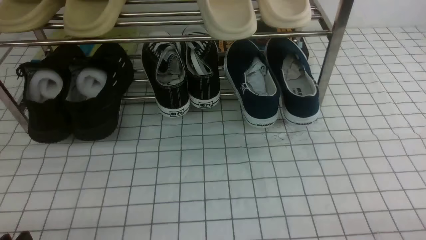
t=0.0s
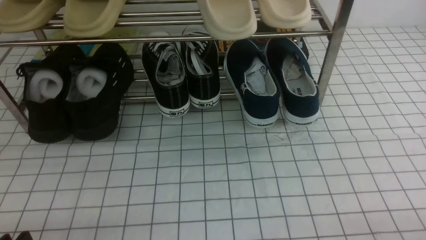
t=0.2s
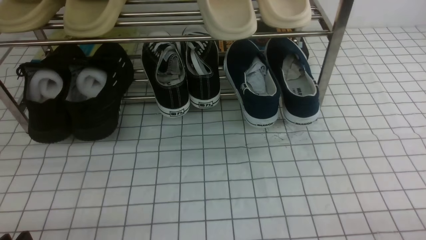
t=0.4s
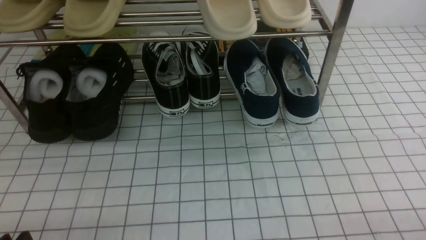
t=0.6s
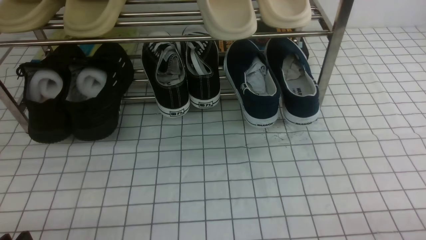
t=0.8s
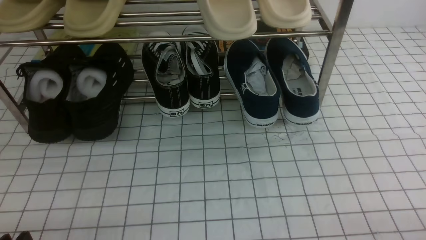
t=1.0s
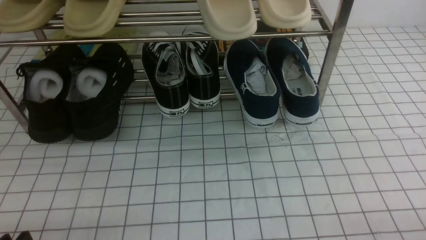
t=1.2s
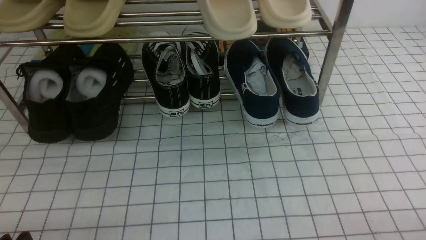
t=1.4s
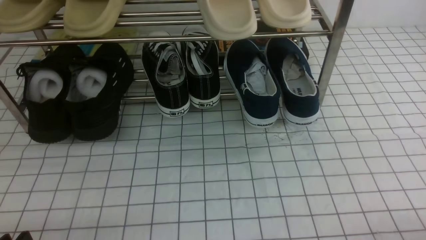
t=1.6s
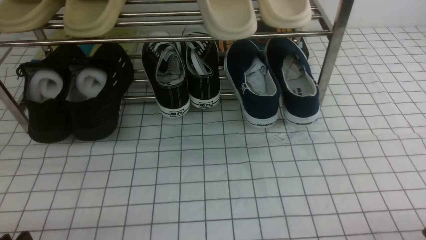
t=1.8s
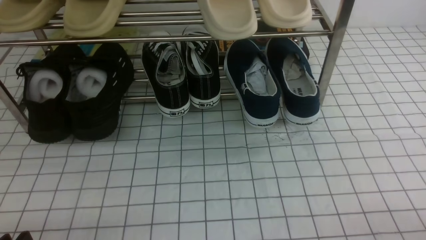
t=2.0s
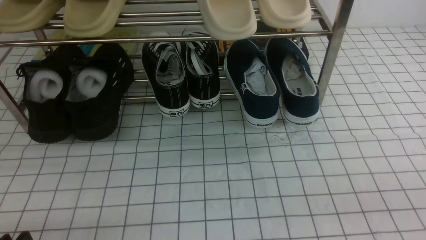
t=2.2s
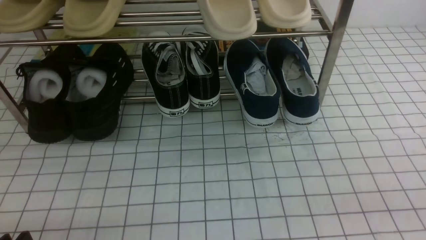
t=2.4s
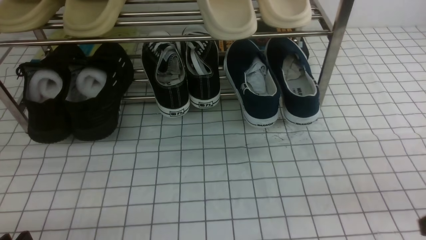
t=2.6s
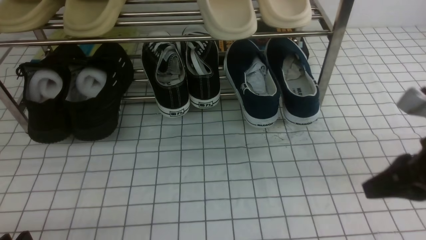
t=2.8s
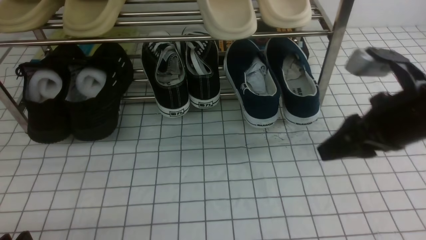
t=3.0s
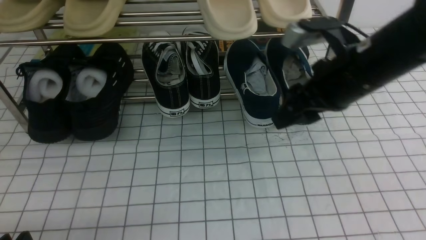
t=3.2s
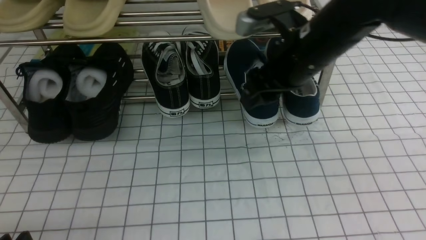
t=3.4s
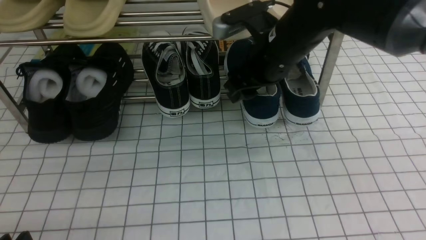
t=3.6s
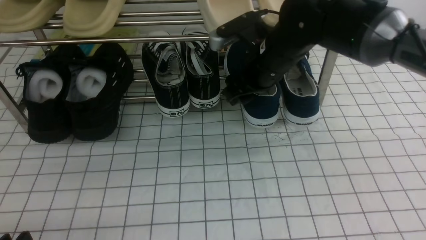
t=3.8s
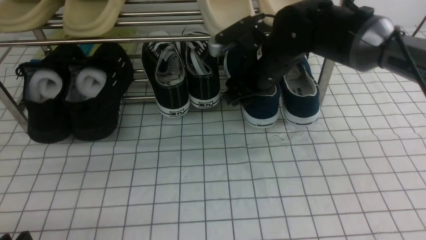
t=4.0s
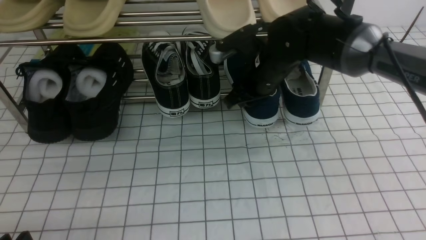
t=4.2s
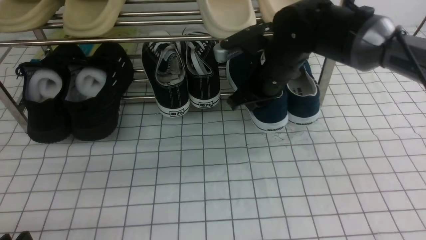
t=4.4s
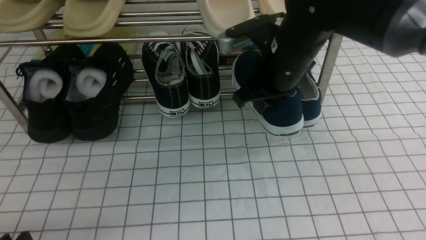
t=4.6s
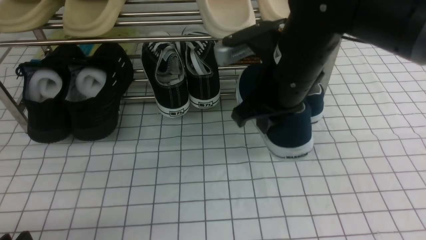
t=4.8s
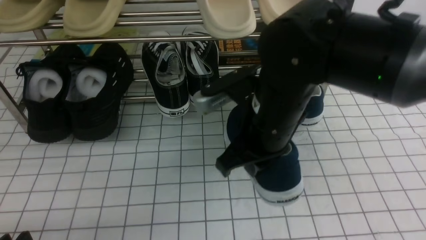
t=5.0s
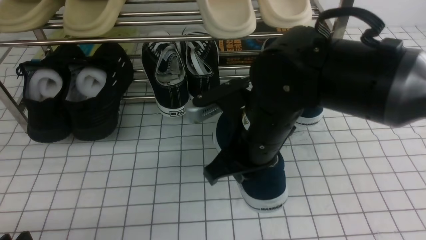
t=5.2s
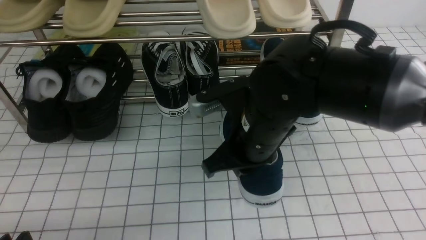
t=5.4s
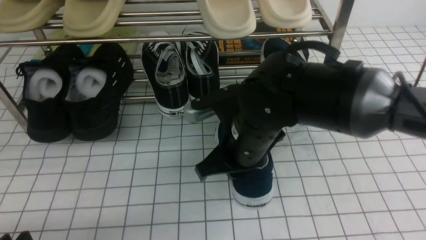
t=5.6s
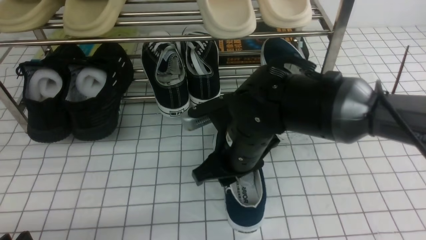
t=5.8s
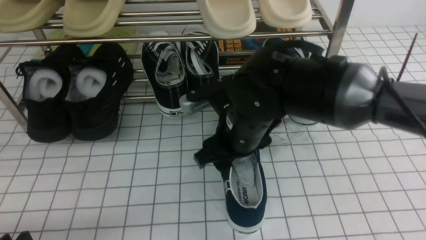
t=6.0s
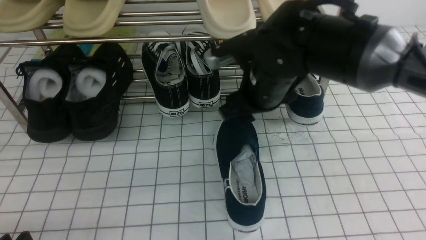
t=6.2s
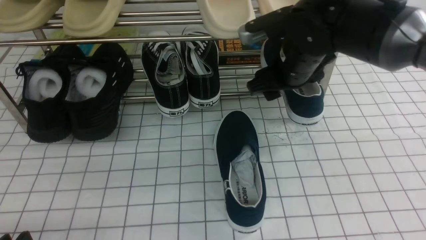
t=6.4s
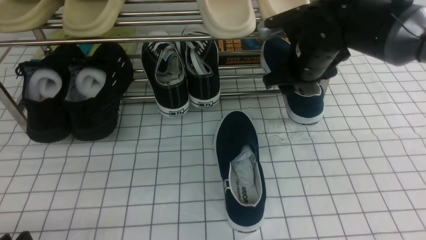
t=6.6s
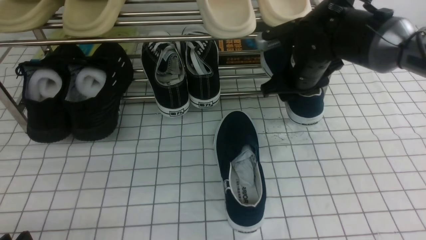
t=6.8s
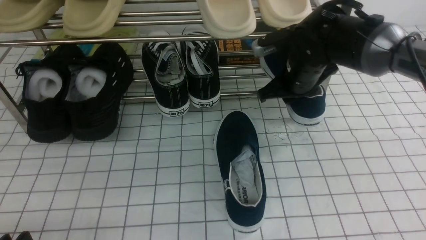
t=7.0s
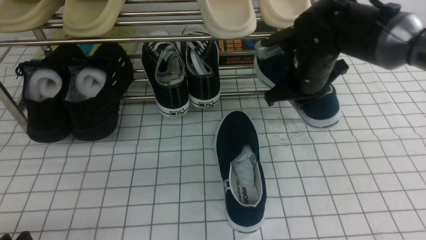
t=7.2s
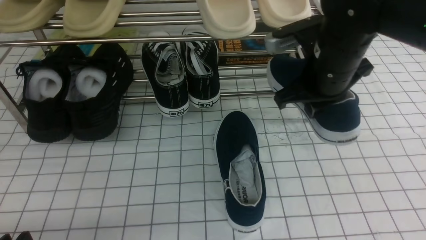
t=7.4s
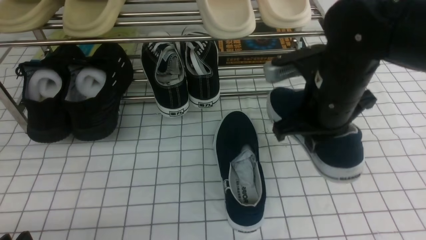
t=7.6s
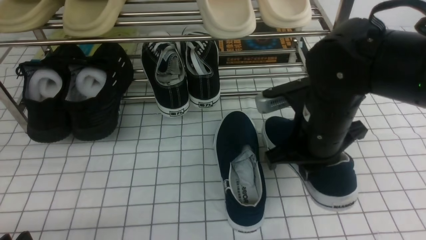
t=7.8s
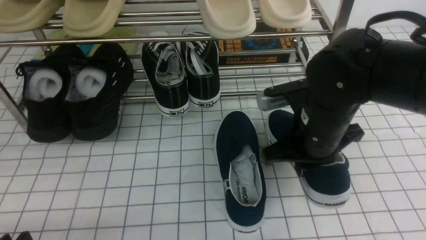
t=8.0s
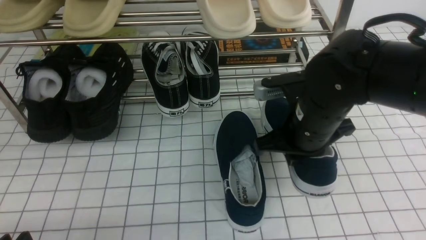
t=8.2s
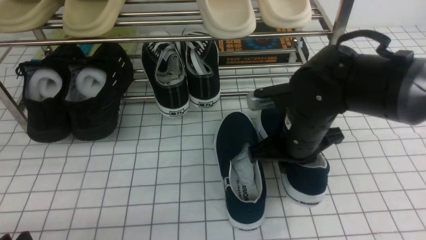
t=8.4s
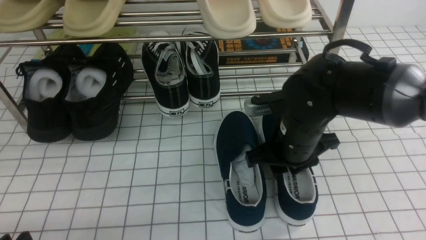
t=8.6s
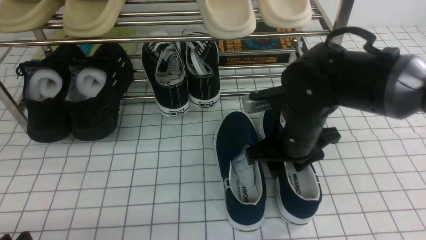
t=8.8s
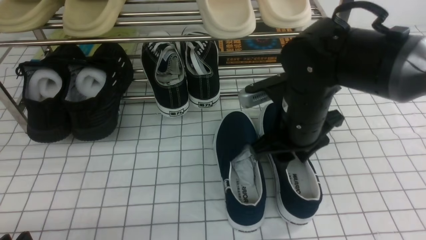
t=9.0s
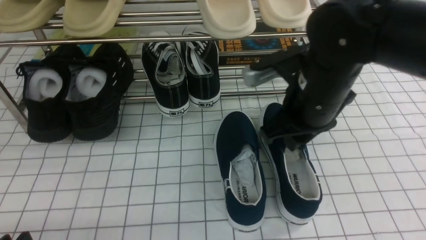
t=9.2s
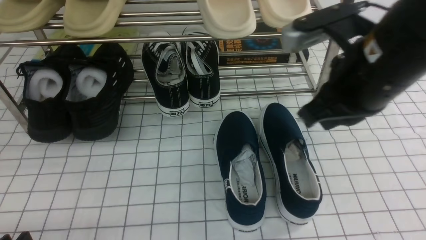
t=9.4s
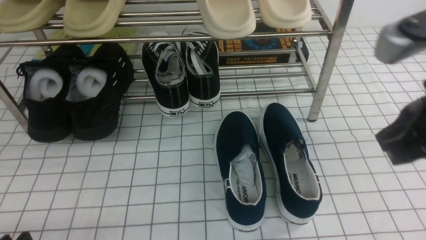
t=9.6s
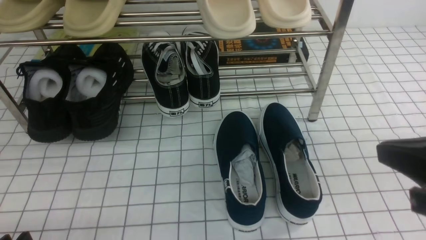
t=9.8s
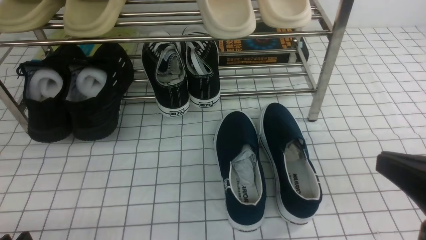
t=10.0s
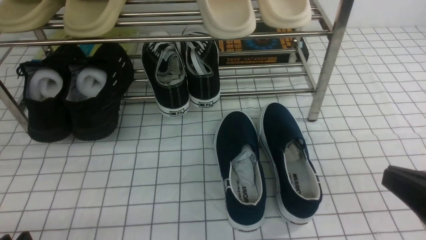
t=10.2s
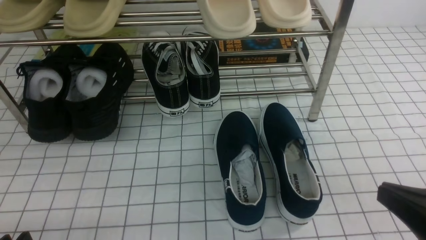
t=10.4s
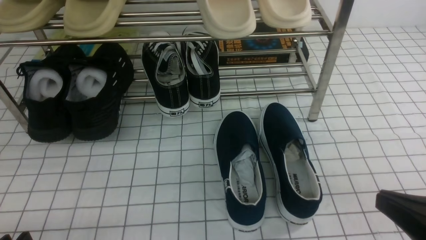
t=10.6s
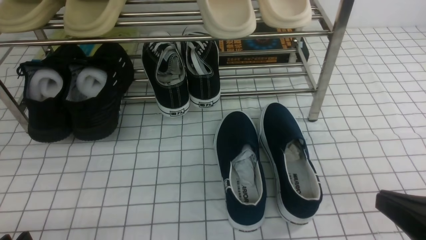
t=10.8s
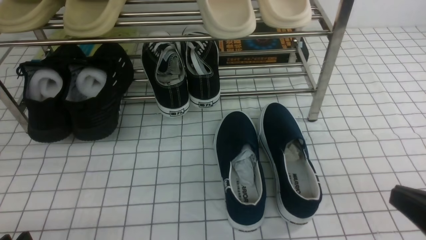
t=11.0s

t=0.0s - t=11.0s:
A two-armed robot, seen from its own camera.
Step, t=0.0s - t=4.2s: use the right arm to clamp a shoe on the right side of the shoe rack.
Step, t=4.4s - t=6.0s: use the right arm to take out the clamped shoe from the shoe rack and put it down.
Step, t=6.2s - t=6.8s: use the right arm to clamp a shoe on the right side of the shoe rack.
Step, t=7.0s - t=9.2s: use the right arm to take out the clamped shoe from the shoe rack and put it down.
t=1.6s - t=3.2s: The right gripper is displaced forward, to the left and upward by roughly 35 cm, and closes and opens again.
t=3.2s - t=4.8s: The right gripper is displaced to the left by approximately 10 cm, moves about 10 cm forward and comes back, and closes up.
t=4.8s - t=6.2s: The right gripper opens up.
t=6.2s - t=7.8s: The right gripper goes approximately 10 cm backward and to the right, and closes.
t=7.8s - t=9.4s: The right gripper goes some 10 cm upward and backward, and opens and closes again.
t=9.4s - t=11.0s: The right gripper moves backward, downward and to the right, about 20 cm.

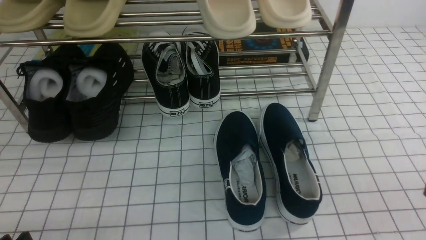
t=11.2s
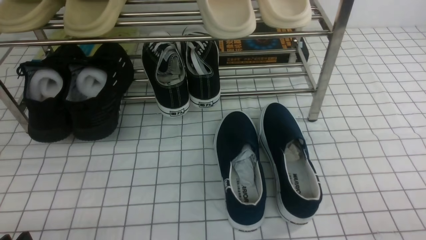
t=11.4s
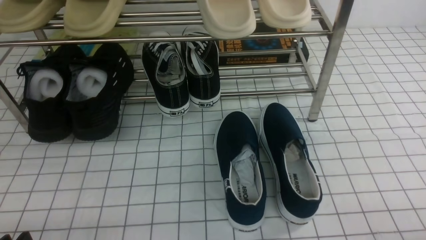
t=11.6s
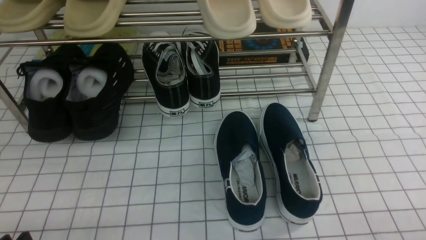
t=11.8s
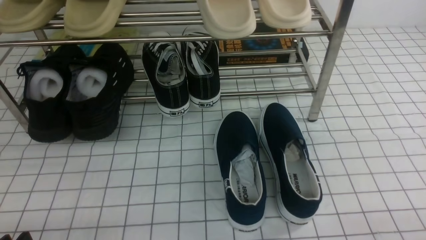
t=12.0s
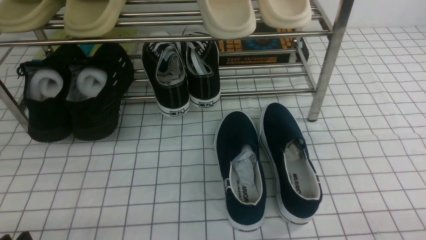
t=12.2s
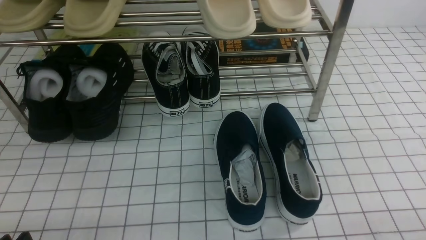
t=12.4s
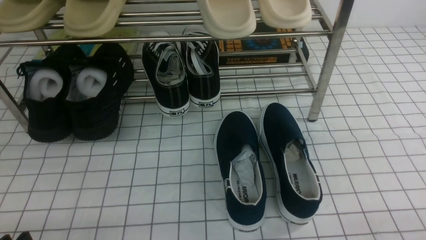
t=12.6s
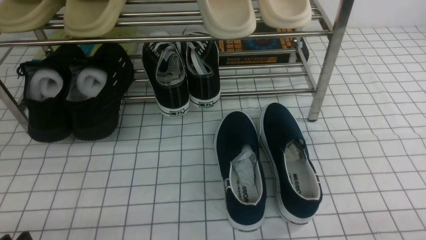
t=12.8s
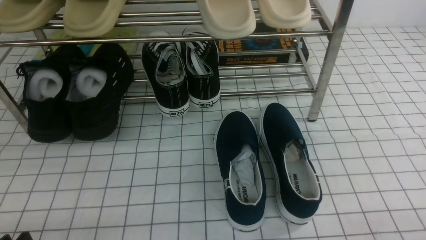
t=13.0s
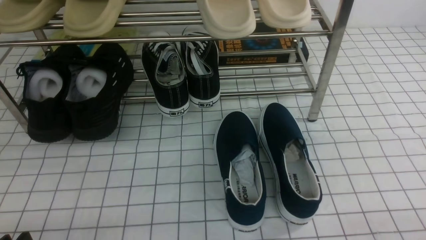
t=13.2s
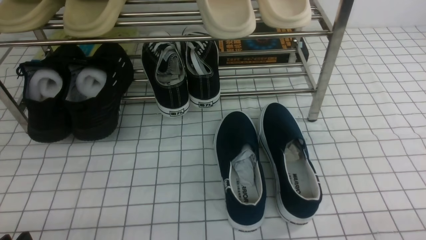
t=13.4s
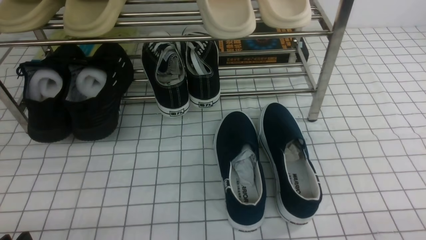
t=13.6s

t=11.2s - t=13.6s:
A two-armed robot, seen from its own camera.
t=12.4s - t=13.6s: Both grippers stay put.

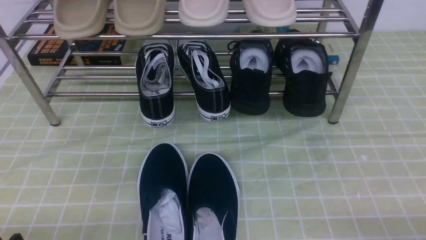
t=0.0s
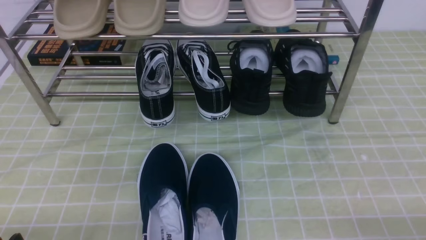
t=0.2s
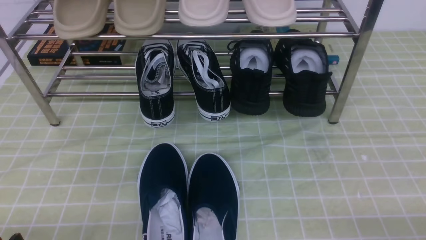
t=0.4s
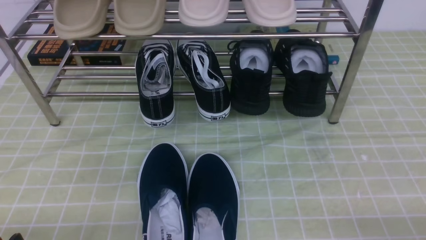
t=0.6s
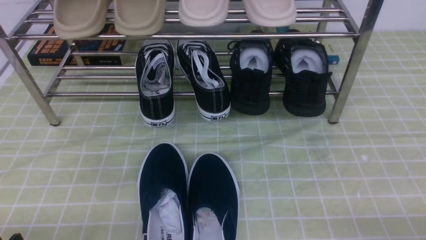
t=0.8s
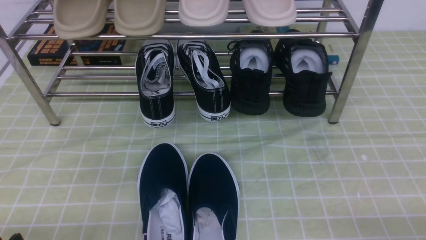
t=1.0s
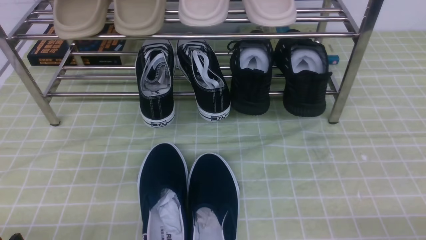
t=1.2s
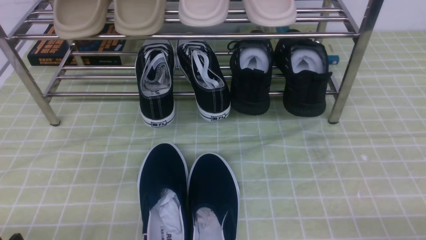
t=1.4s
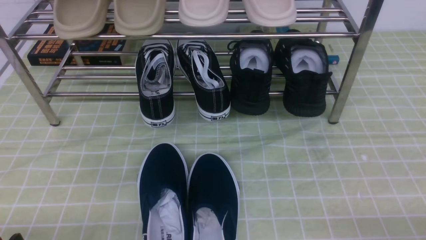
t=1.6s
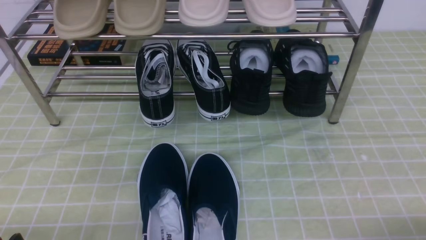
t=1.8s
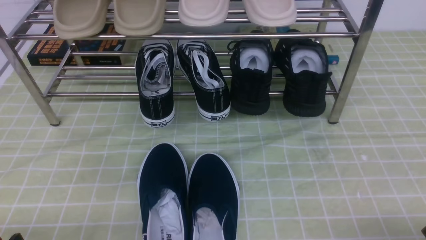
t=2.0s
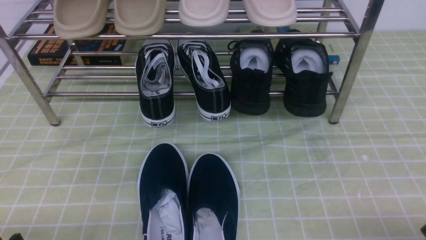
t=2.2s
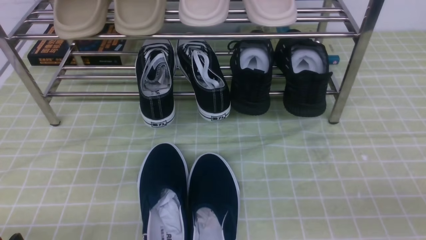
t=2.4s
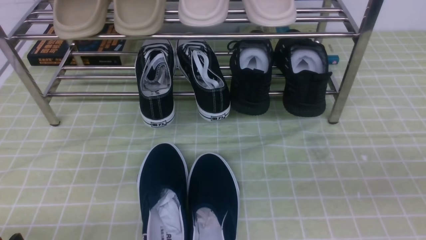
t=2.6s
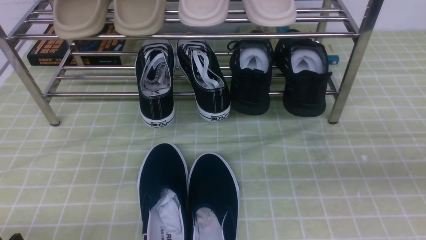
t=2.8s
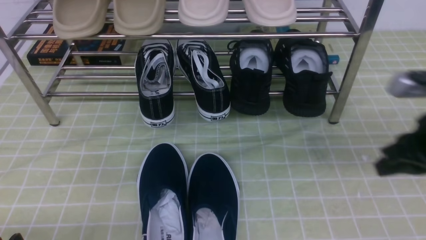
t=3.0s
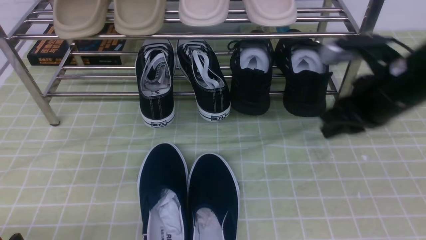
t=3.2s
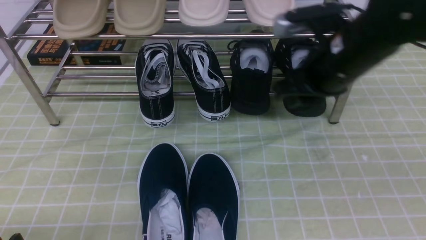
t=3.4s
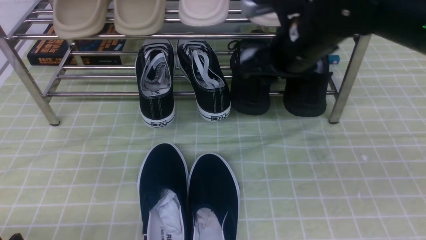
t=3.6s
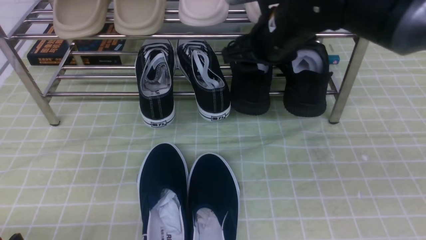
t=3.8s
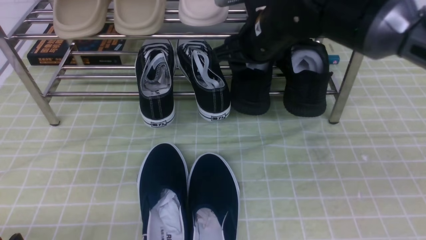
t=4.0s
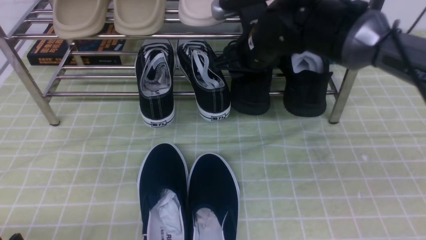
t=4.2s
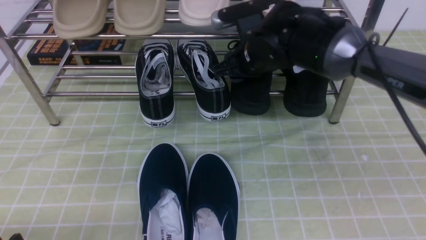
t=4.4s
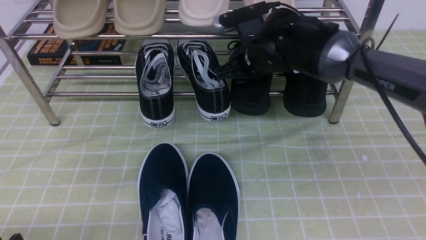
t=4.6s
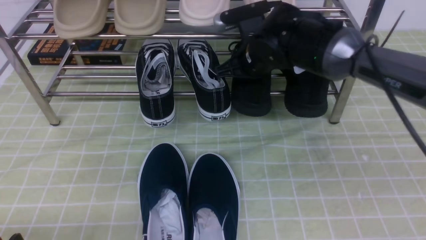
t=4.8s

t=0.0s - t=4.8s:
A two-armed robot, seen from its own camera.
Step, t=0.0s - t=4.6s: use the right arm to clamp a shoe on the right side of the shoe rack.
t=1.6s - t=3.2s: The right gripper heads forward, upward and to the left, covering approximately 30 cm.
t=3.2s - t=4.8s: The right gripper moves forward and to the left, approximately 20 cm, and opens and closes again.
